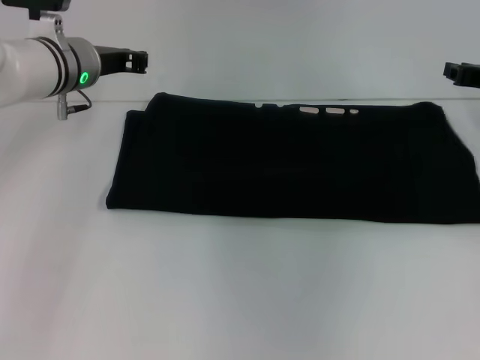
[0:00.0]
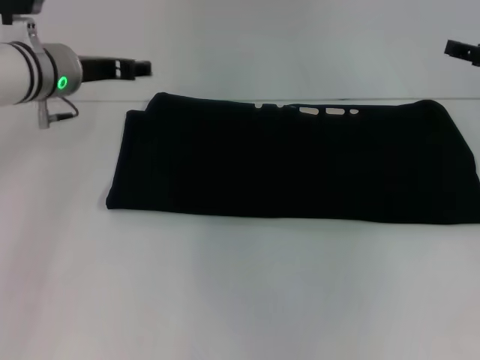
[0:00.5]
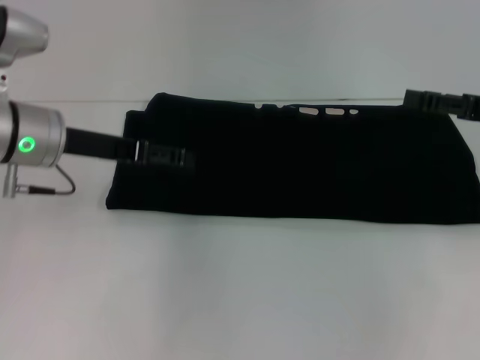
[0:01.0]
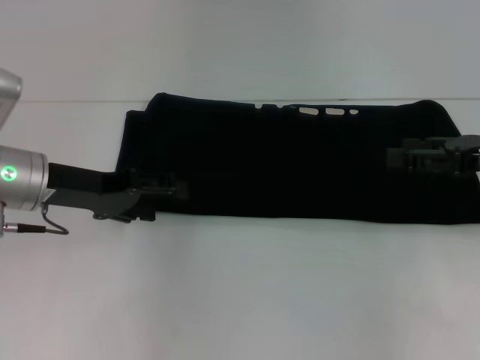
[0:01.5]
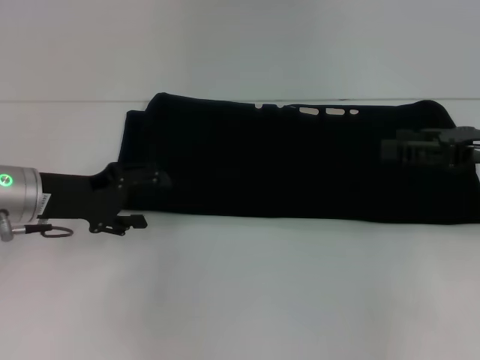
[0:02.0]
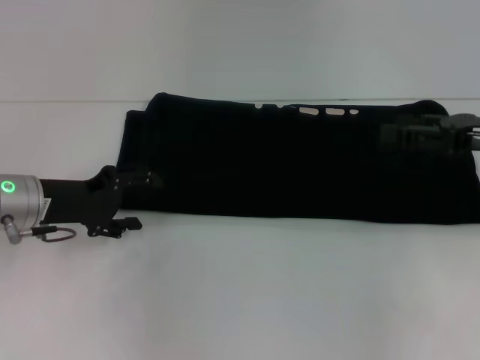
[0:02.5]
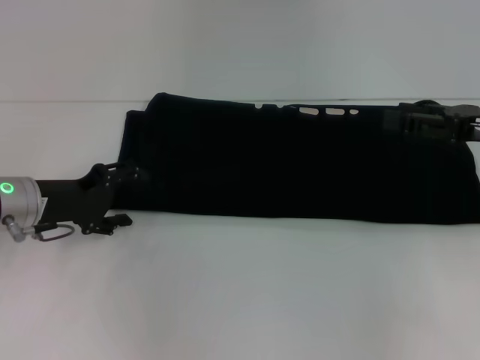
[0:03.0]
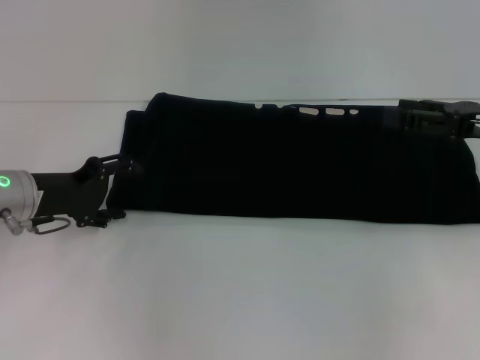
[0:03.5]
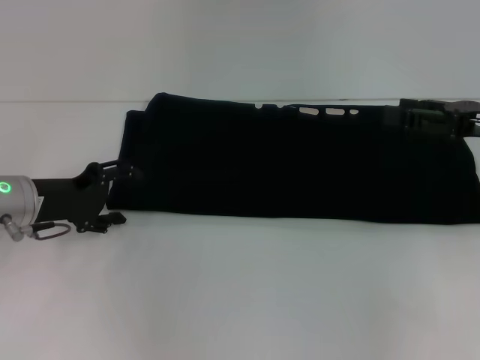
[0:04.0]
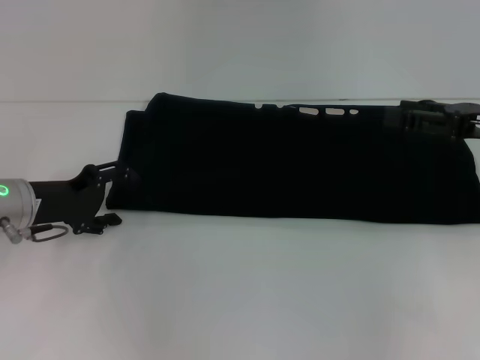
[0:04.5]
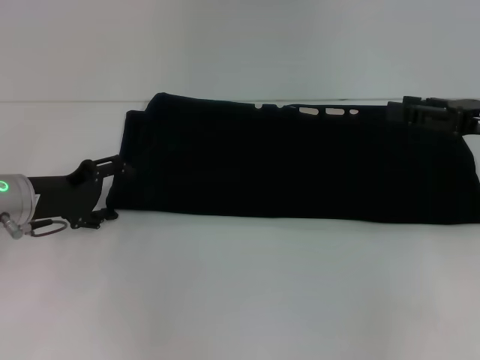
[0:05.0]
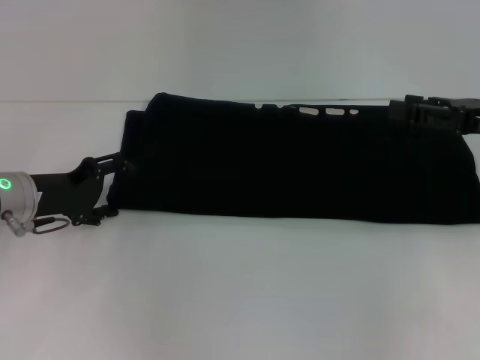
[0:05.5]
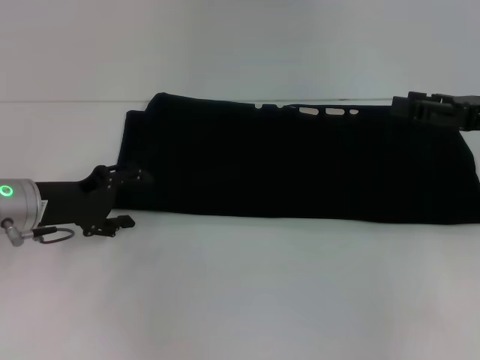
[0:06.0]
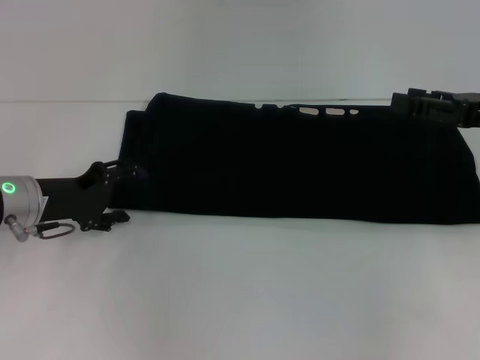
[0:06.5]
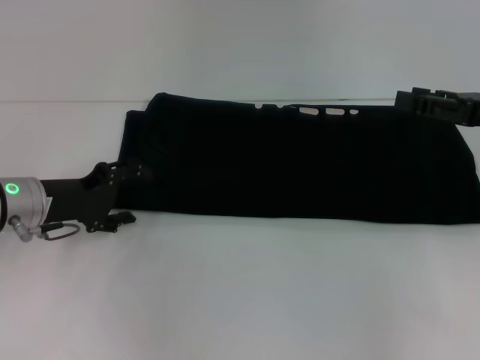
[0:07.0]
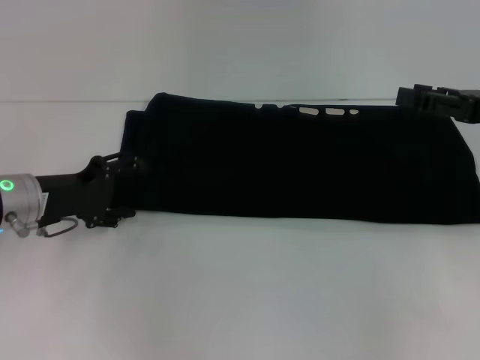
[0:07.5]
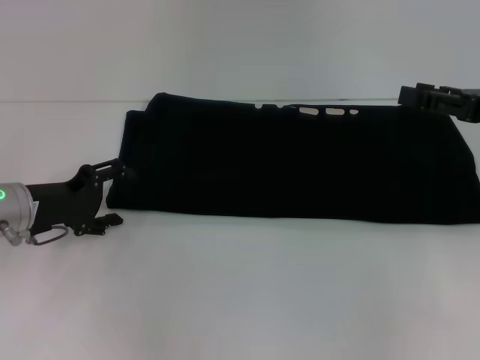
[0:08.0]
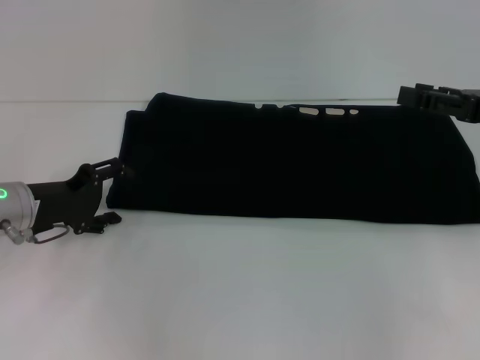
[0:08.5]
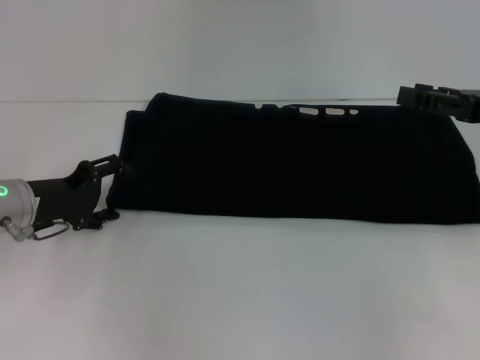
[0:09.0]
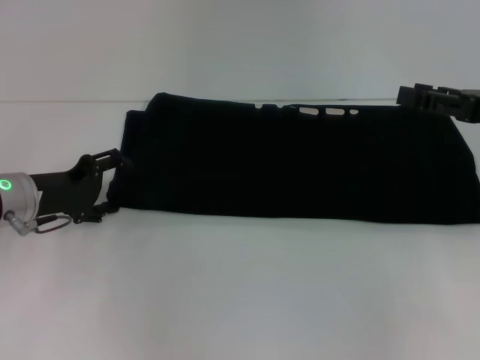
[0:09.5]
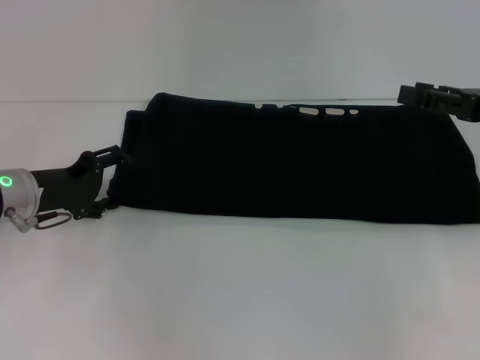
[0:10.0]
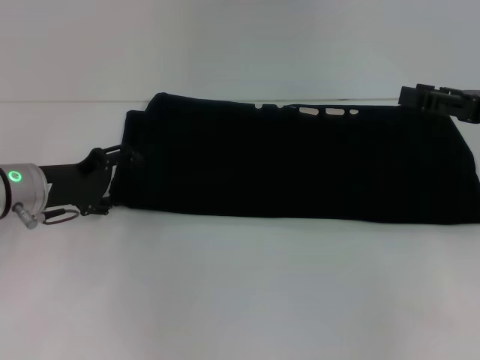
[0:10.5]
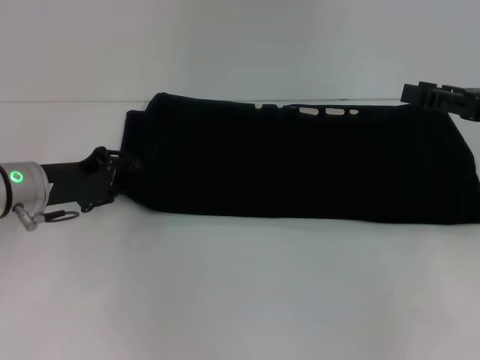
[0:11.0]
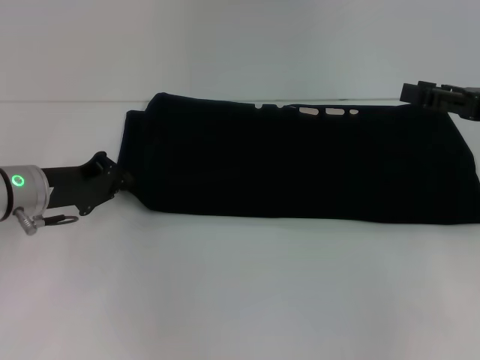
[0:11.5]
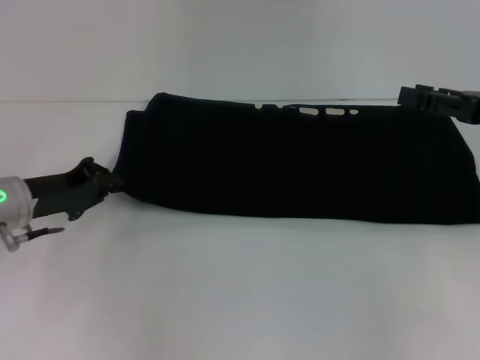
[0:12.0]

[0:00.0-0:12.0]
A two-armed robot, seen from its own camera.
0:00.0 to 0:02.0: The left gripper goes some 15 cm backward, to the left and downward, and opens its fingers. Meanwhile the right gripper moves backward, approximately 10 cm, and opens.
0:02.0 to 0:04.0: The grippers make only small movements.
0:04.0 to 0:06.0: Both grippers stay put.
0:06.0 to 0:10.0: The grippers stay close to where they were, moving slightly.
0:10.0 to 0:12.0: The left gripper closes up.

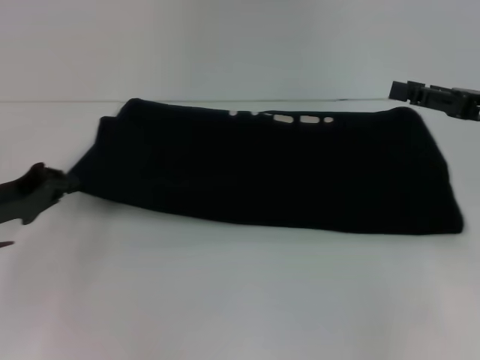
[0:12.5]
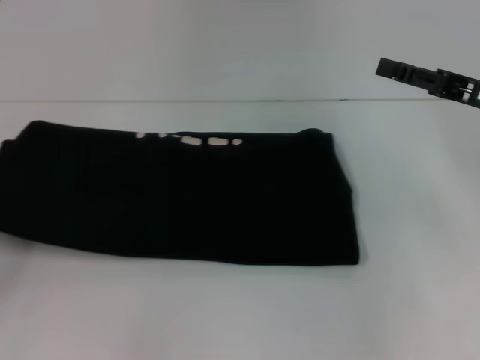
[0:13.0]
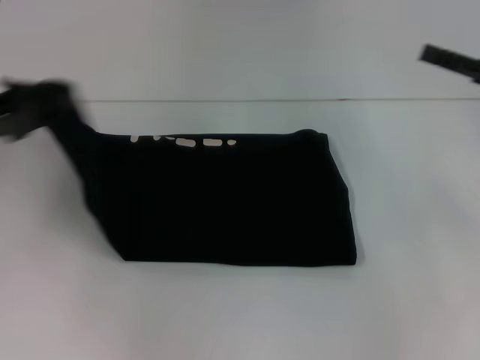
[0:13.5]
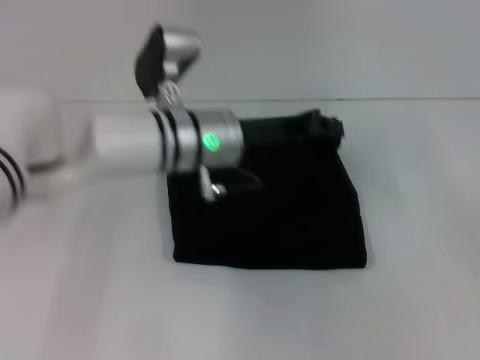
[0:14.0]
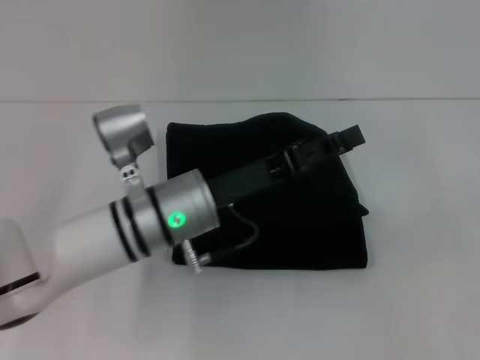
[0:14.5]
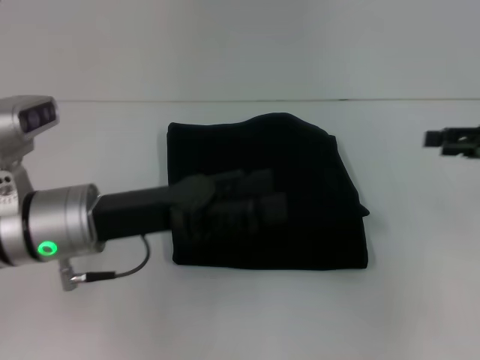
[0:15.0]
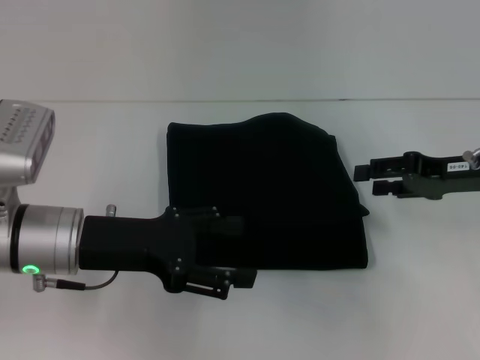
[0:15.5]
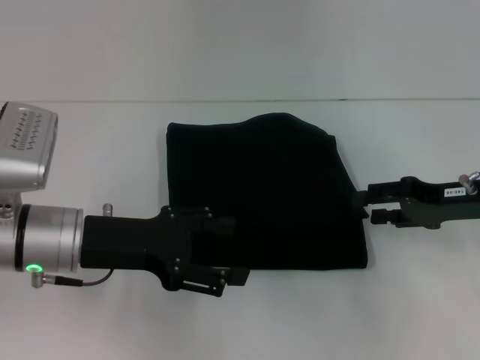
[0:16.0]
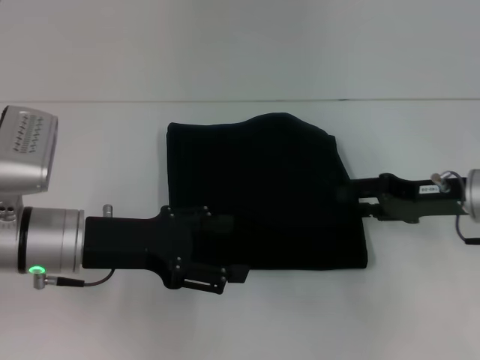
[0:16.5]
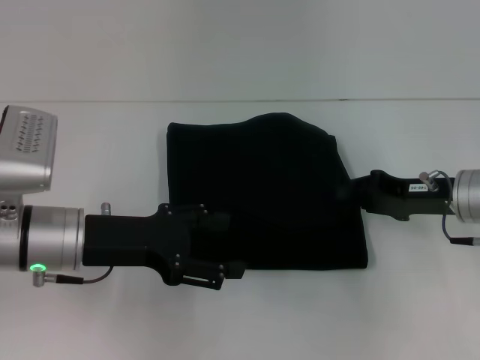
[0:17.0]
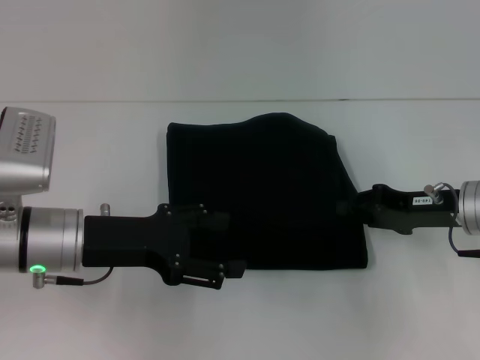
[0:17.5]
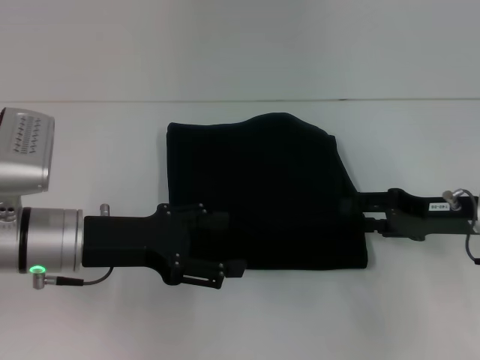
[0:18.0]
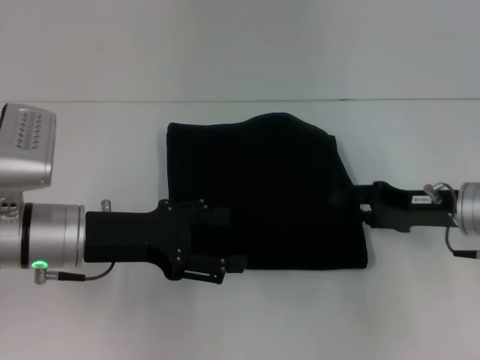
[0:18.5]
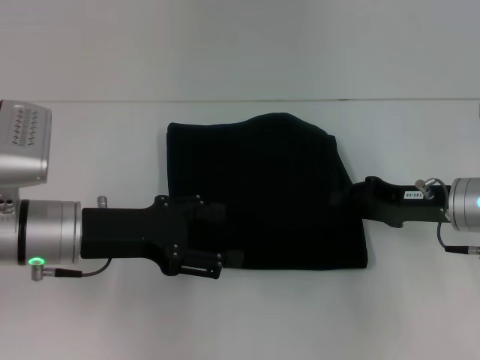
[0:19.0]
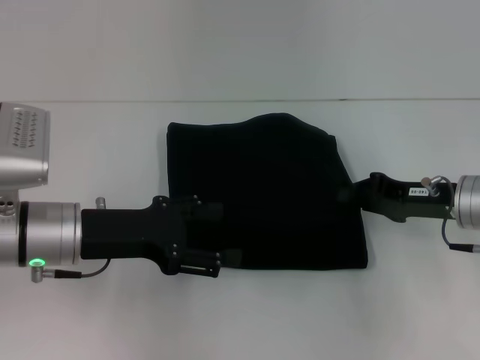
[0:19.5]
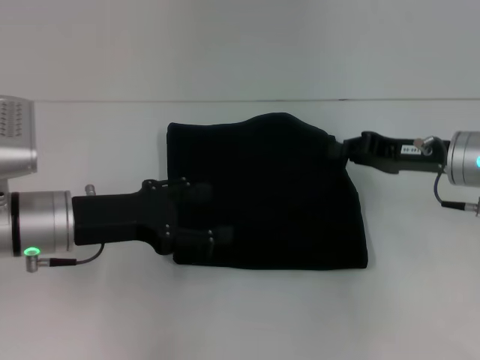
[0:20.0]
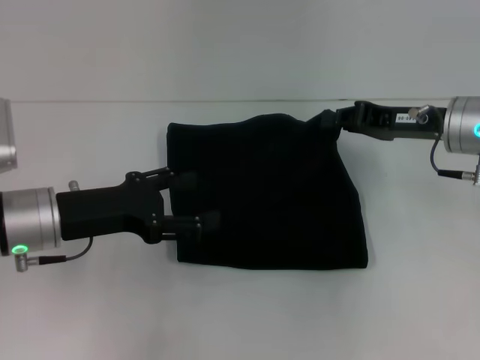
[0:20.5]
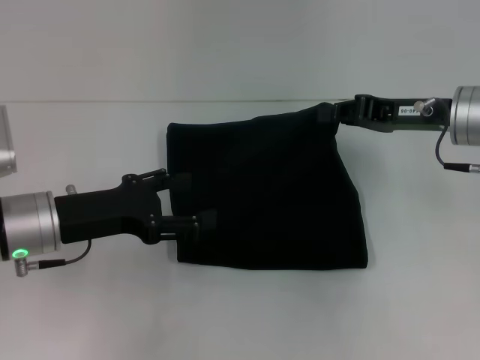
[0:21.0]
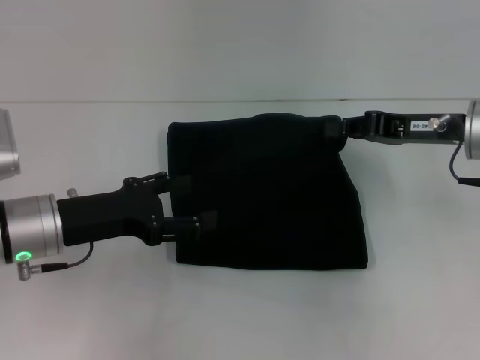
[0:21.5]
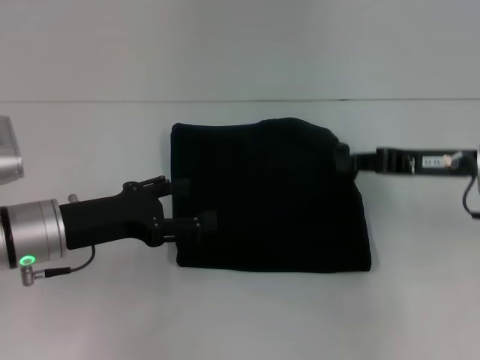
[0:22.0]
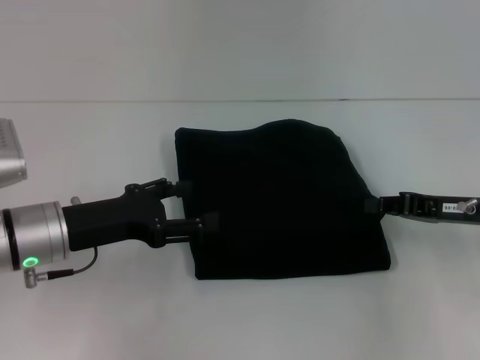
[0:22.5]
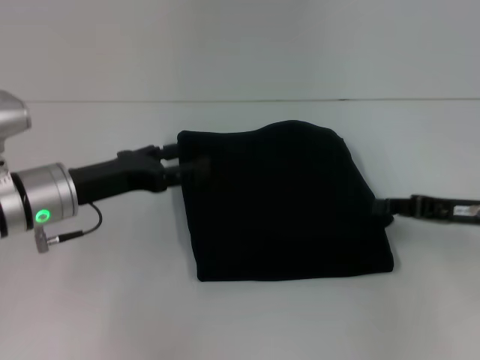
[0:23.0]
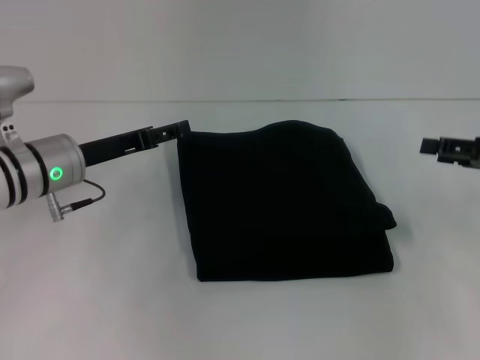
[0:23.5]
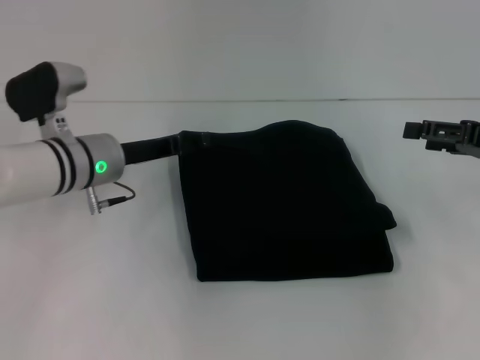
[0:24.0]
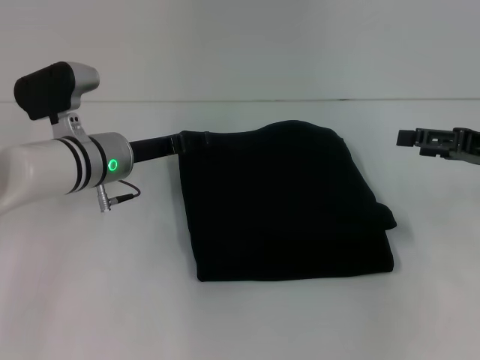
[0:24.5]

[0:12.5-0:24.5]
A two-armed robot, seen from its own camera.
Step, 0:12.5 to 0:14.5: Fold the clothes with your left hand.
0:12.5 to 0:14.5: The left gripper heads to the right, covering about 25 cm. Meanwhile the right gripper is displaced to the right by approximately 10 cm.
0:14.5 to 0:16.5: The right gripper goes some 20 cm to the left and downward, while the left gripper travels to the left by approximately 10 cm, and opens.
0:16.5 to 0:18.5: The right gripper closes, then reopens.
0:18.5 to 0:20.5: The right gripper shifts some 5 cm upward, and closes up.
0:20.5 to 0:22.5: The right gripper shifts approximately 10 cm backward, downward and to the right.
0:22.5 to 0:24.5: The right gripper shifts by roughly 5 cm, and opens up, while the left gripper travels forward and to the right by approximately 10 cm.

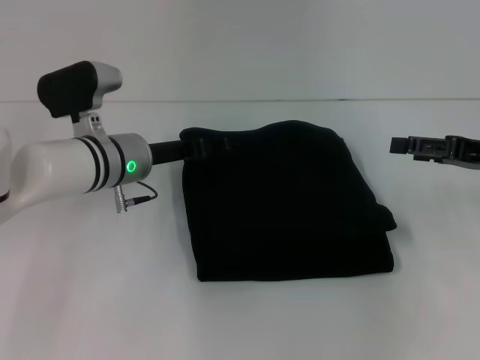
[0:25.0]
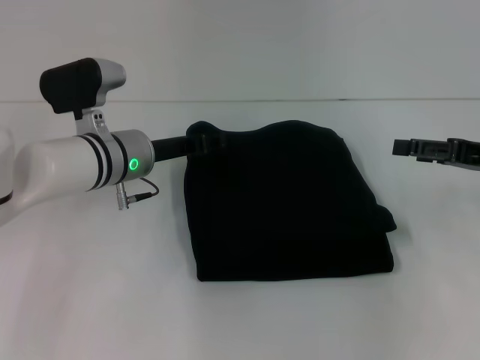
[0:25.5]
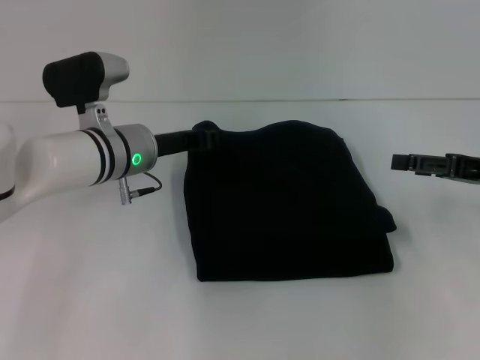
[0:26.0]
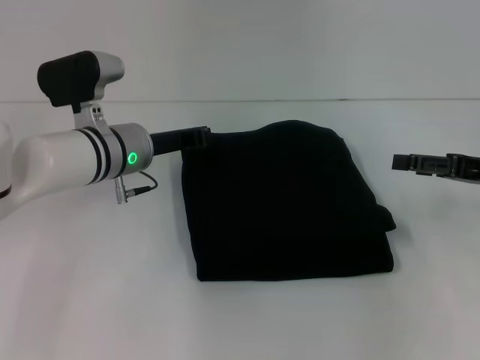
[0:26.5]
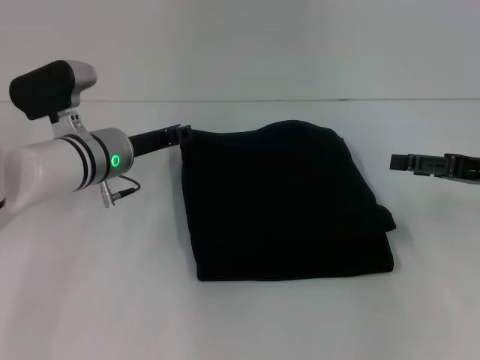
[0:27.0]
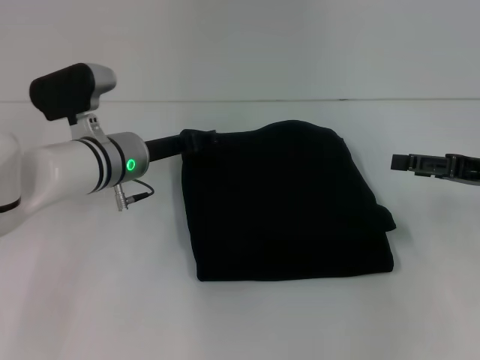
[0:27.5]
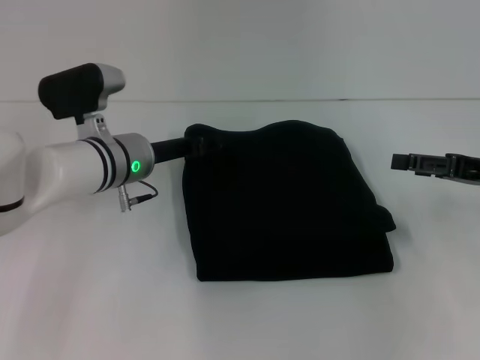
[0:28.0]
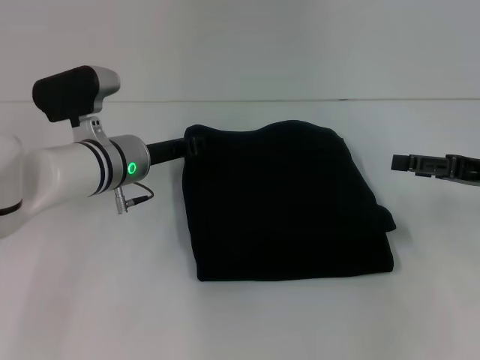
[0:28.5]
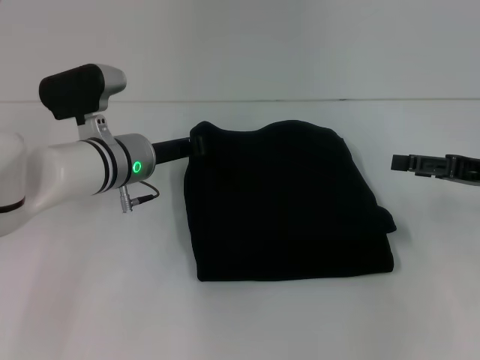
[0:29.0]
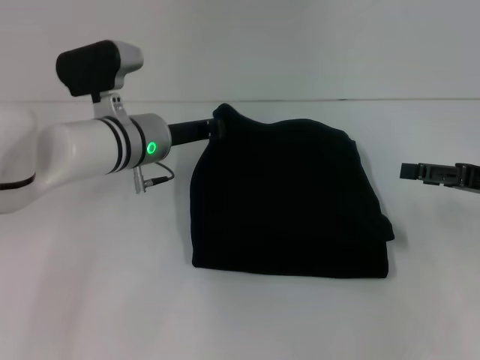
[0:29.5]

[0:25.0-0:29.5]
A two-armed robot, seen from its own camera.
0:25.0 to 0:27.0: The left gripper closes up.
0:27.0 to 0:29.5: The left gripper opens and closes again.
